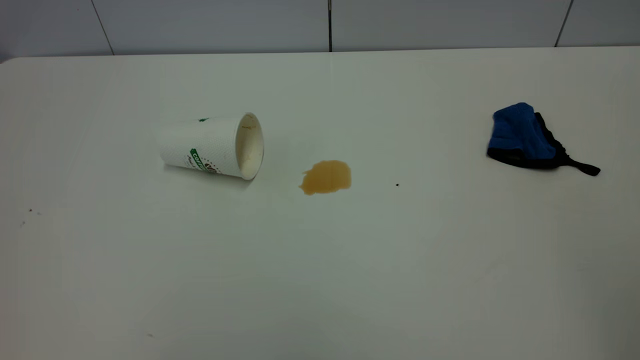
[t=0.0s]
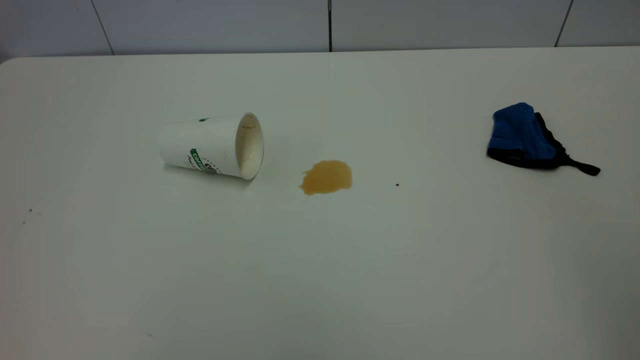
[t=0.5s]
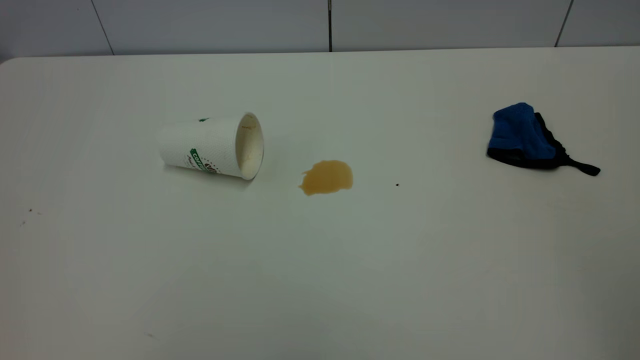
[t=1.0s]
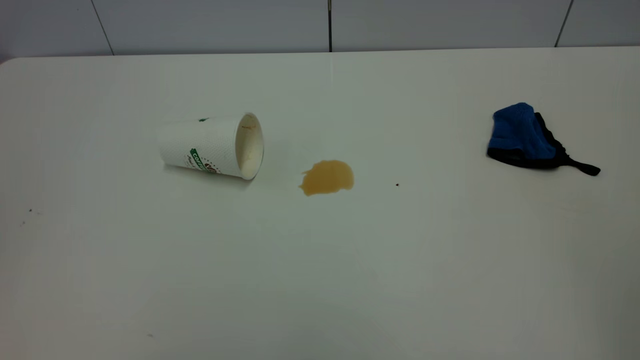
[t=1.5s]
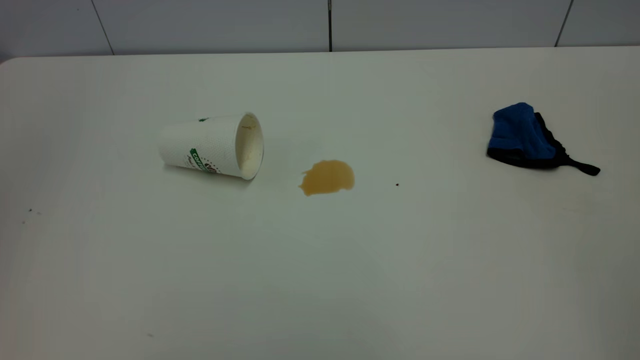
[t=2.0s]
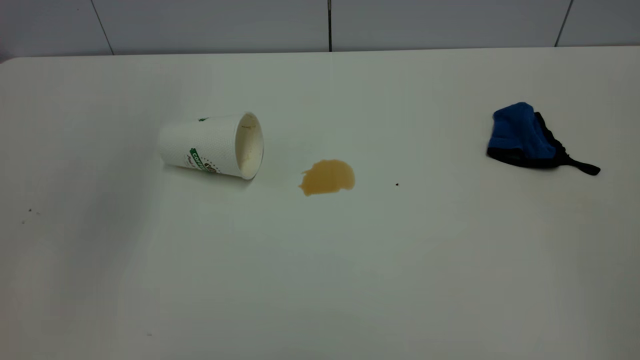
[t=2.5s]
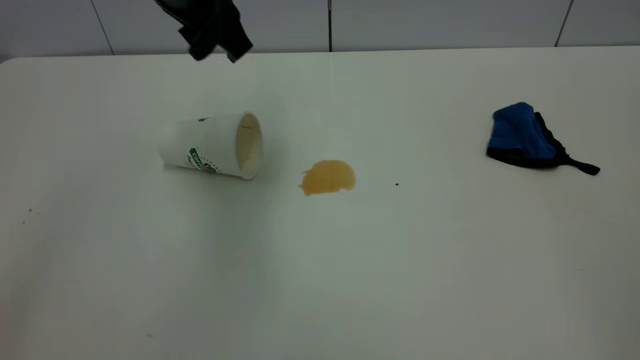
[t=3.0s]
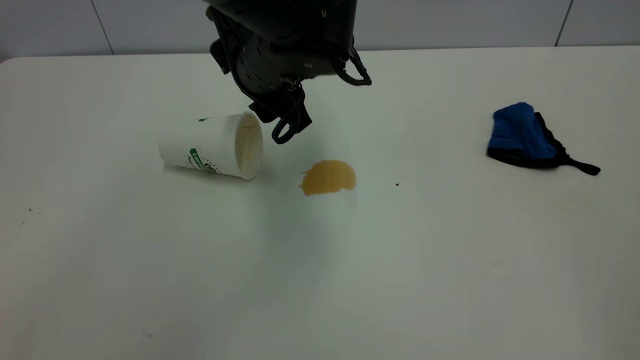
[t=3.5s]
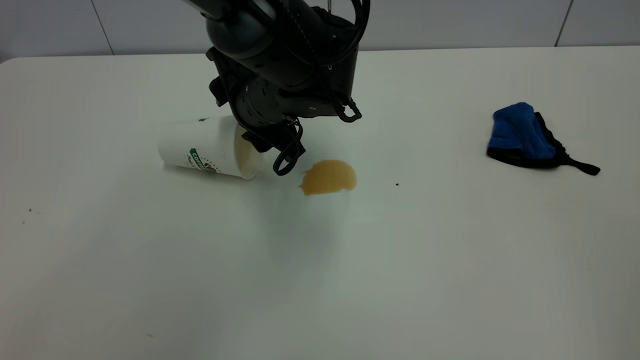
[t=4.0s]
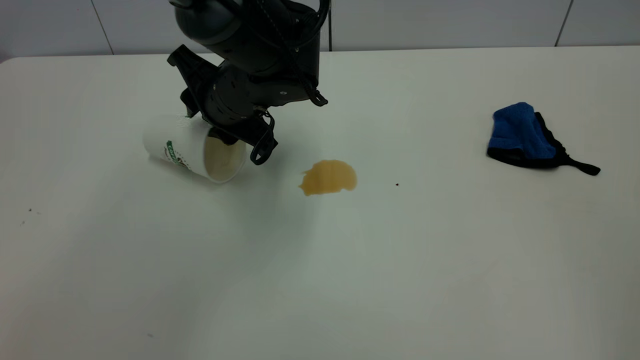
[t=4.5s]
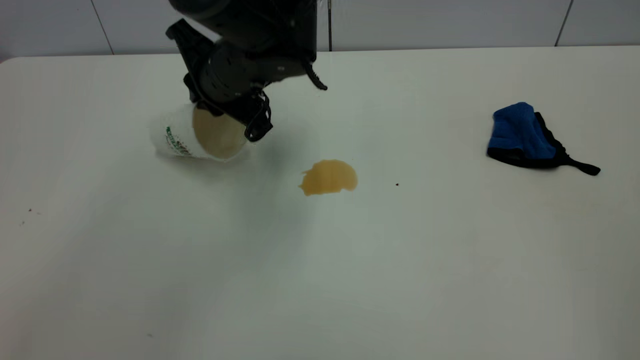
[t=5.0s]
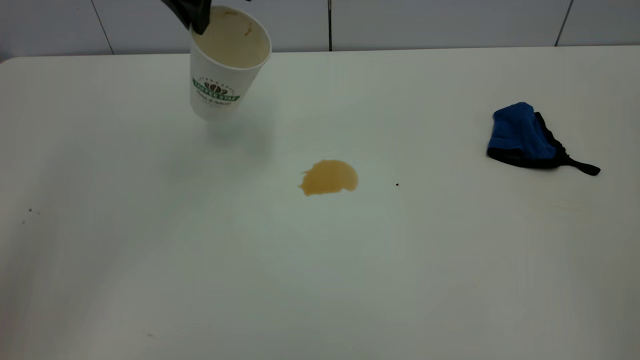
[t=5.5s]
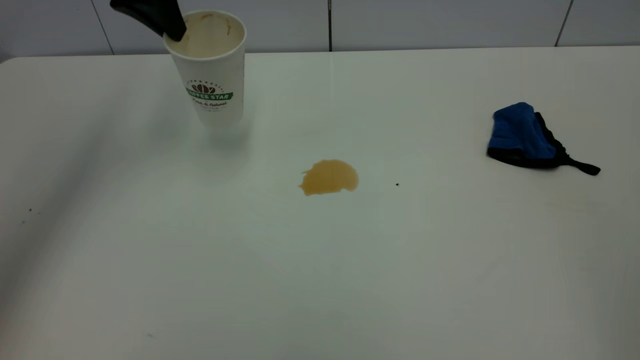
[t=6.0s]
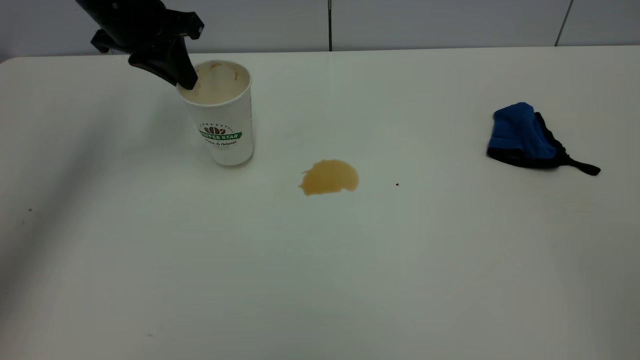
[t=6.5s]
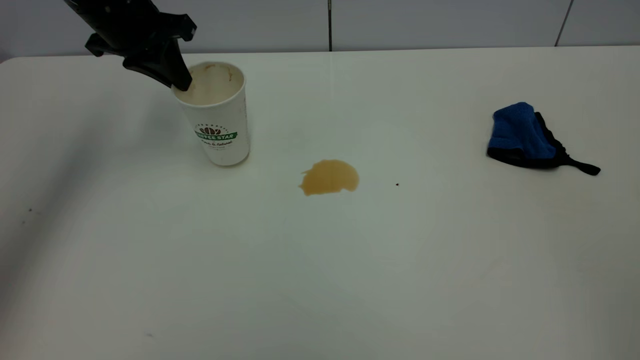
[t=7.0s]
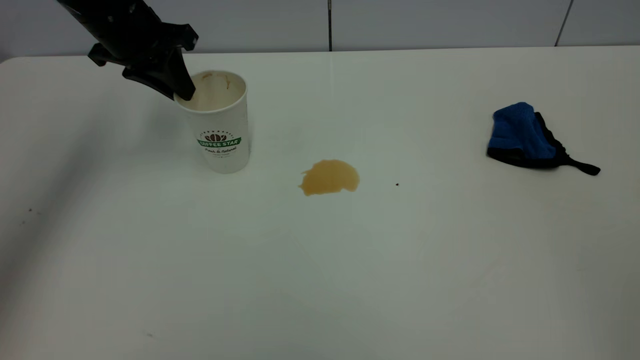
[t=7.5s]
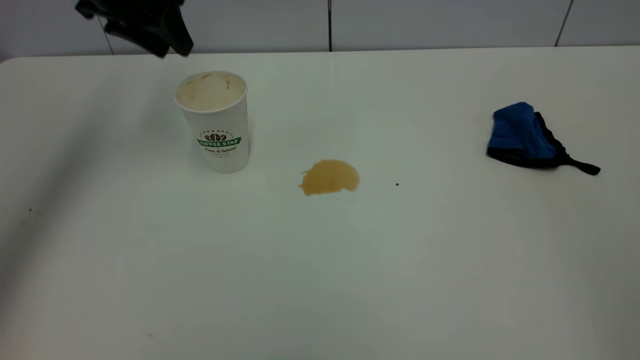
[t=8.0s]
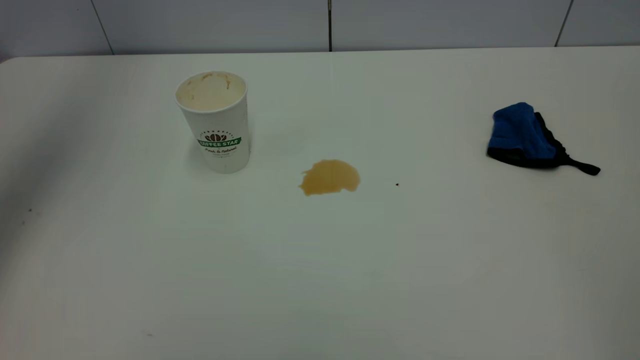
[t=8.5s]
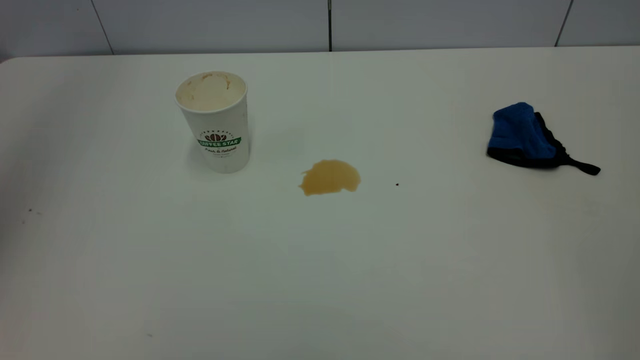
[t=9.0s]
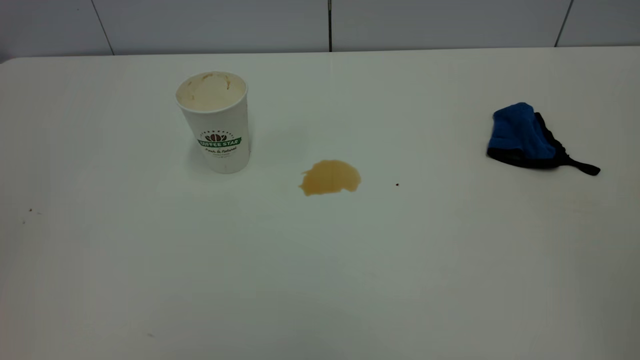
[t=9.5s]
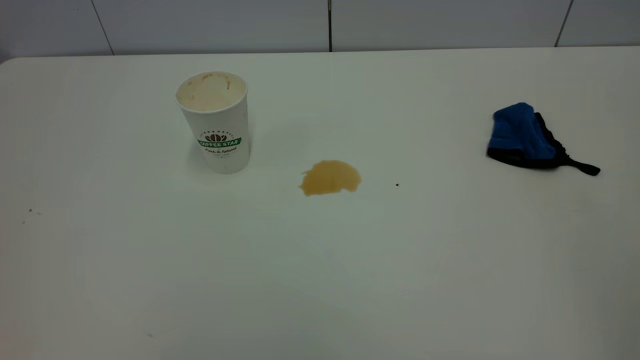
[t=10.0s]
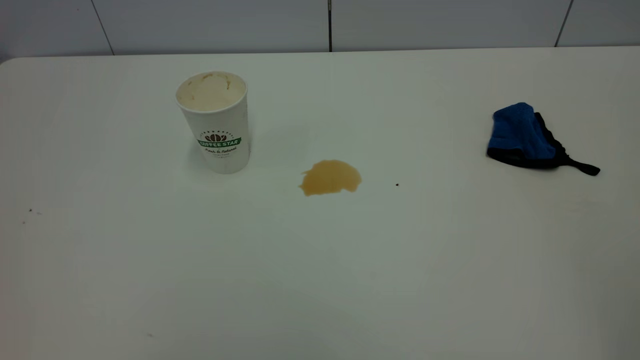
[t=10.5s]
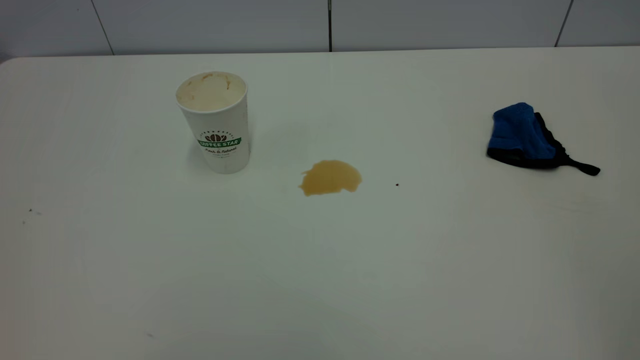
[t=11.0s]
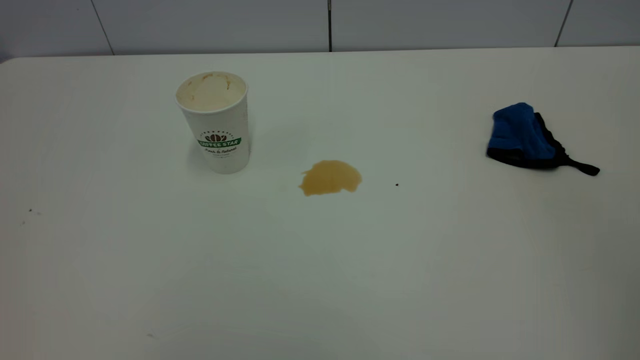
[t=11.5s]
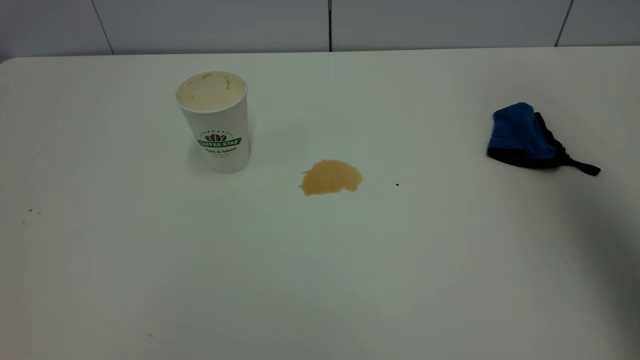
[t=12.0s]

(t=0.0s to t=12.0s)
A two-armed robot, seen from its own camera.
Task of the whole recording: the left gripper pick up the fallen cup and place it upright, the right gripper grasp the blue rag and wipe the tea stain on the table, the right gripper put the blue rag back in its original position.
Step, t=0.0s - t=7.5s: Stand the paper cup upright.
t=2.0s - t=4.0s: The left gripper shifts some 50 cm downward, to the right and forward.
t=4.0s - t=6.0s: The left gripper goes approximately 25 cm to the left, upward and forward, and closes its fingers.
t=6.0s - t=8.0s: The left gripper opens.
t=8.0s - t=10.0s: The left gripper heads backward, covering about 50 cm.
t=10.0s - t=12.0s: The right gripper heads forward, covering about 30 cm.

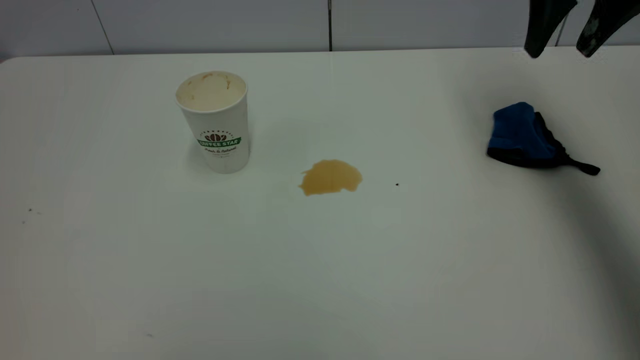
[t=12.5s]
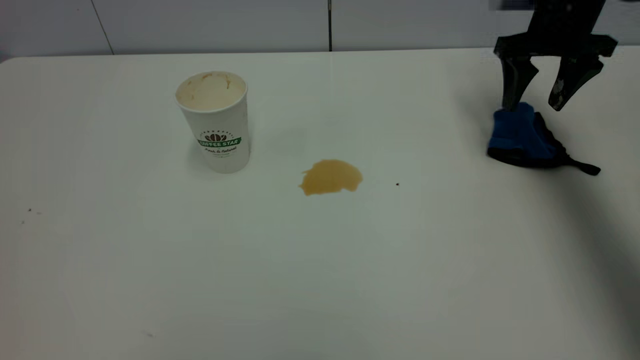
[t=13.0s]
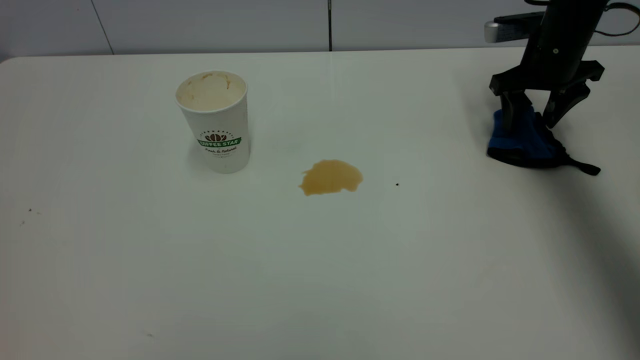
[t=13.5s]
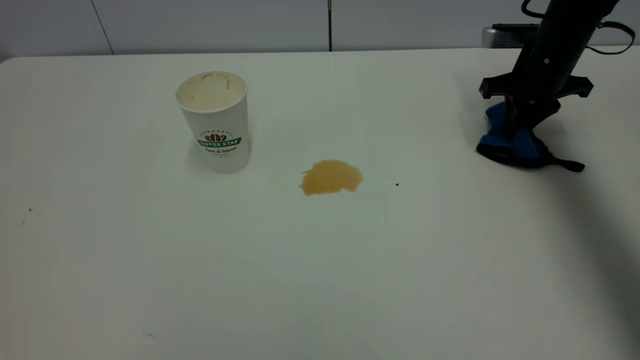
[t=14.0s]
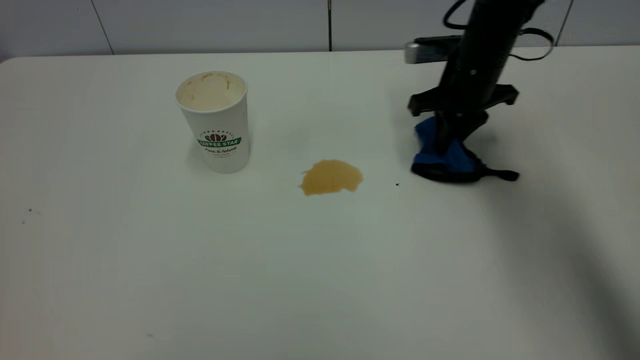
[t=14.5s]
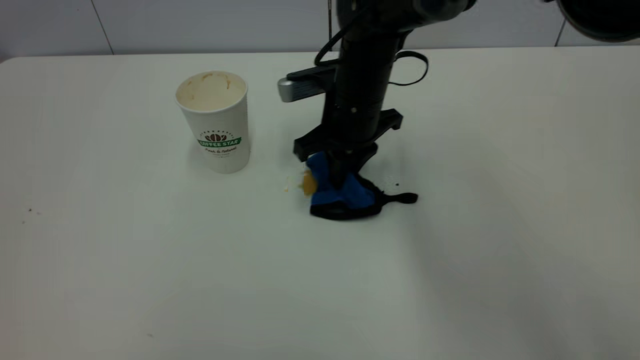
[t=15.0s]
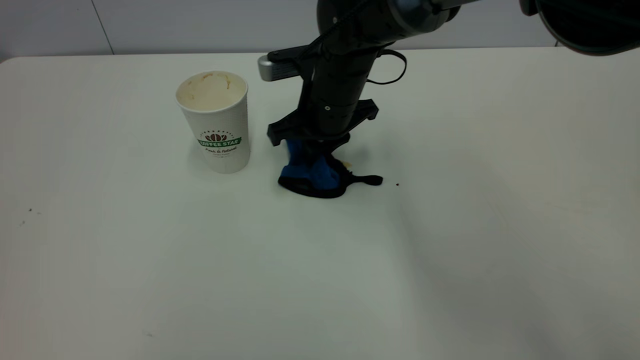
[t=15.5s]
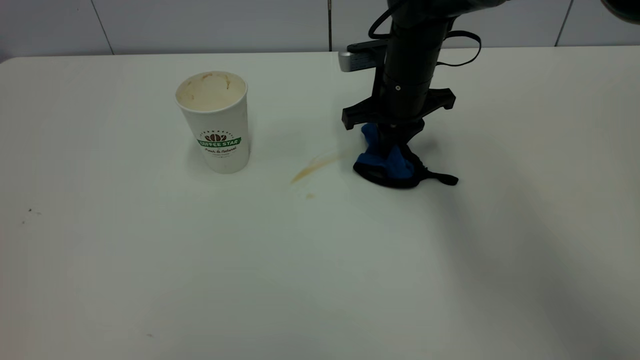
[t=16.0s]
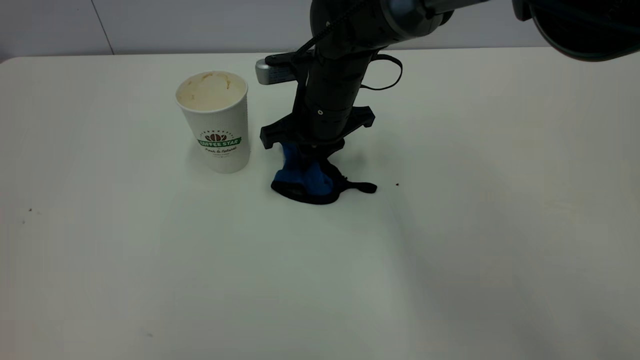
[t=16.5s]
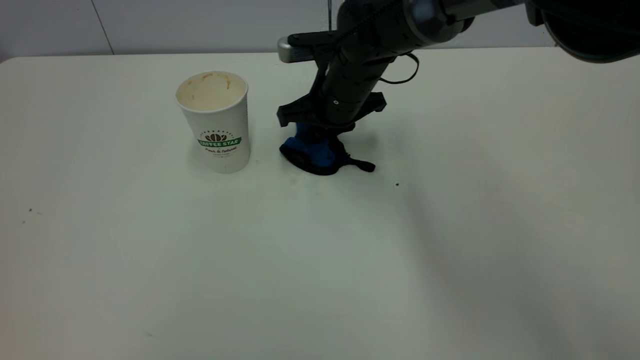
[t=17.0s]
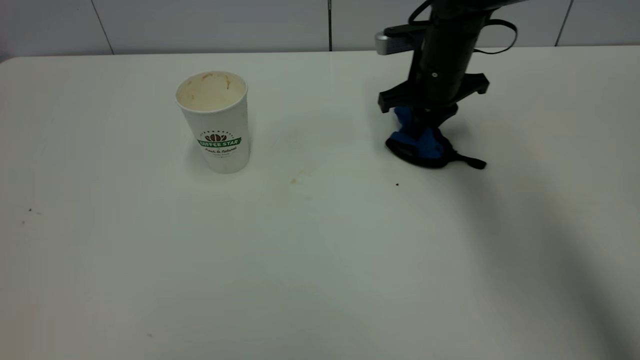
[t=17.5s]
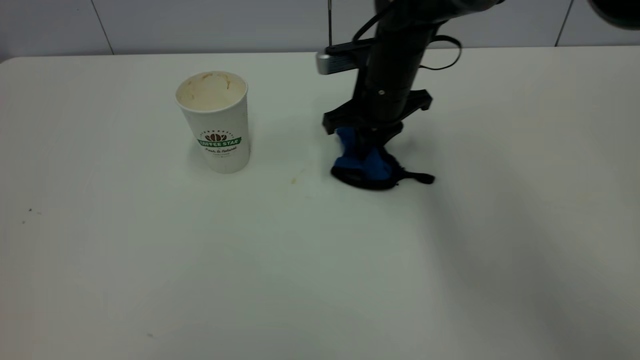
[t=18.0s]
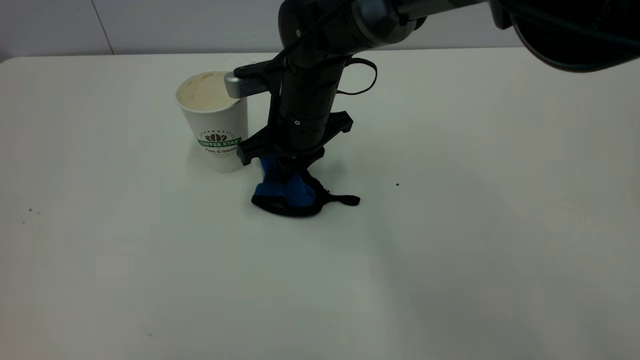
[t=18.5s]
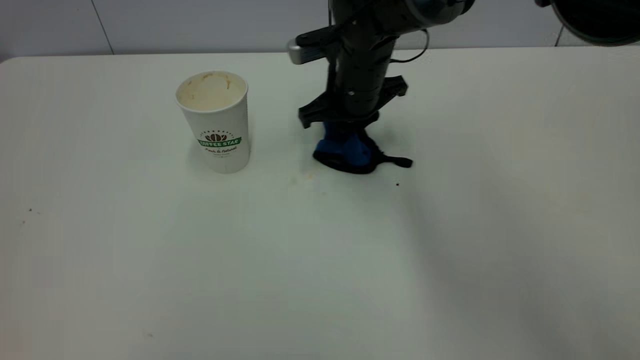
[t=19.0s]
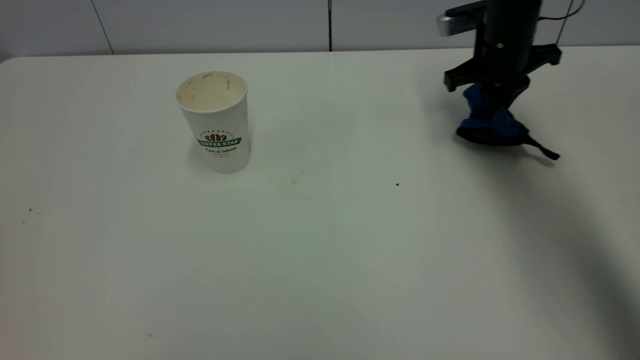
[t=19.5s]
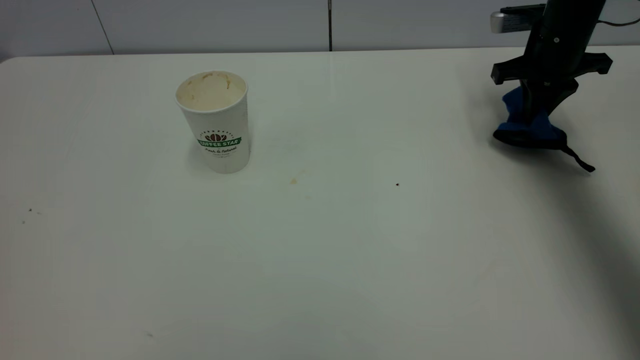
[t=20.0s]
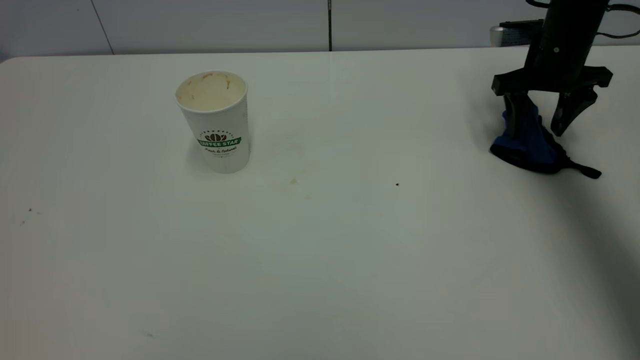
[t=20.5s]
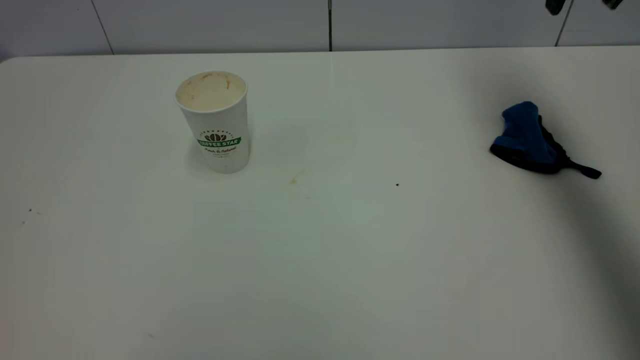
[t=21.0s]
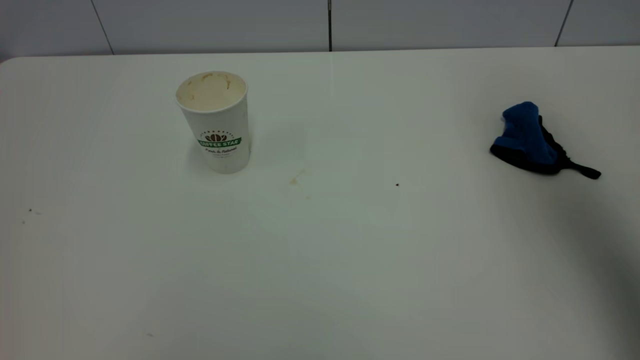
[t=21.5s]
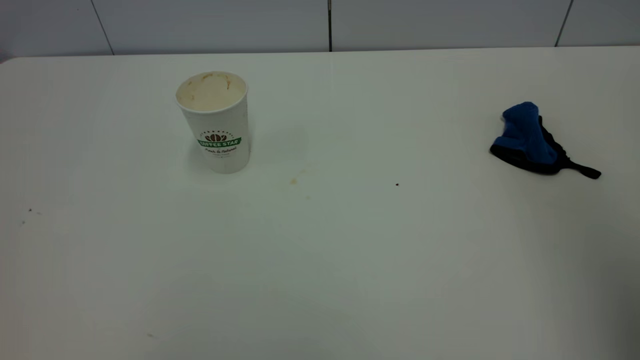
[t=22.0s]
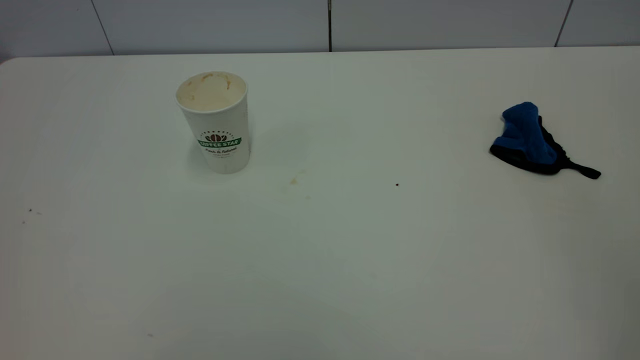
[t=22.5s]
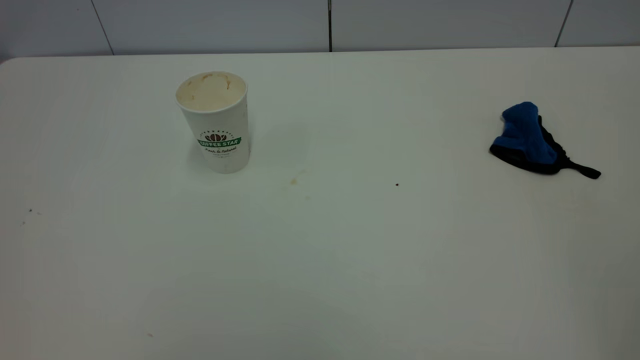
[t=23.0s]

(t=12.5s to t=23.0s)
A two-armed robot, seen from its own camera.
Task of the whole recording: the left gripper pick up the fallen cup and place it upright, the right gripper grasp the blue rag and wipe the tea stain on the table, the right gripper put the blue rag back in its original position.
Step, t=12.5s - t=20.5s: Wipe the stains off the table with a rag.
t=12.5s - t=14.5s: The right gripper heads downward and to the left, covering approximately 20 cm, and closes up.
t=14.5s - t=16.5s: The right gripper goes left and right, roughly 15 cm each way, reversing 2 times.
t=16.5s - t=19.0s: The right gripper moves left and right over about 20 cm, changing direction 2 times.
t=19.0s - t=21.0s: The right gripper moves to the right and upward, about 30 cm, and opens its fingers.
t=21.0s - t=23.0s: The right gripper is displaced backward by approximately 50 cm.
